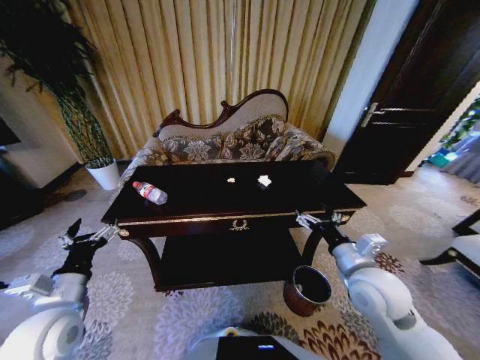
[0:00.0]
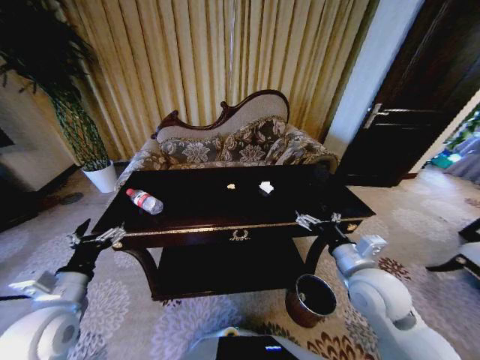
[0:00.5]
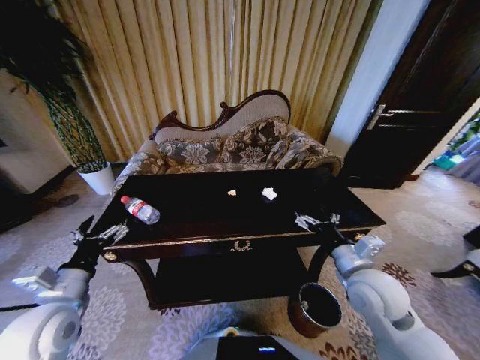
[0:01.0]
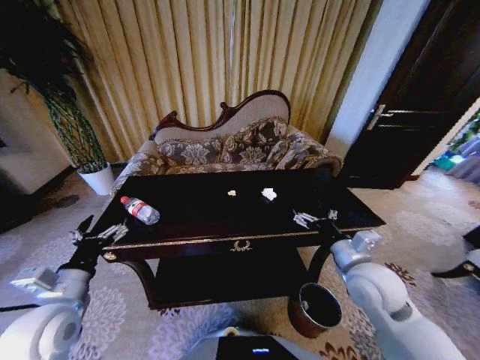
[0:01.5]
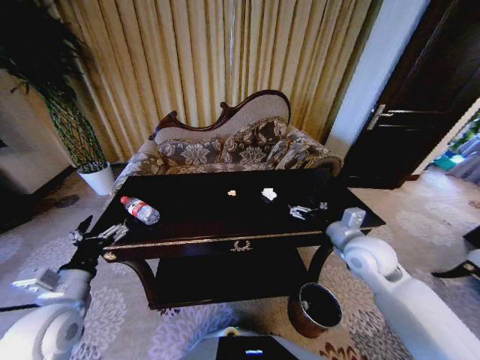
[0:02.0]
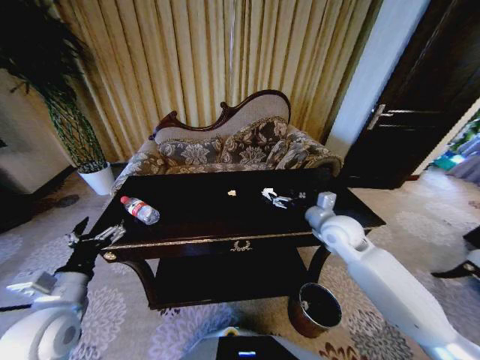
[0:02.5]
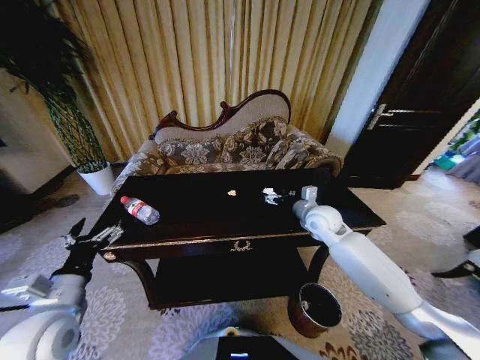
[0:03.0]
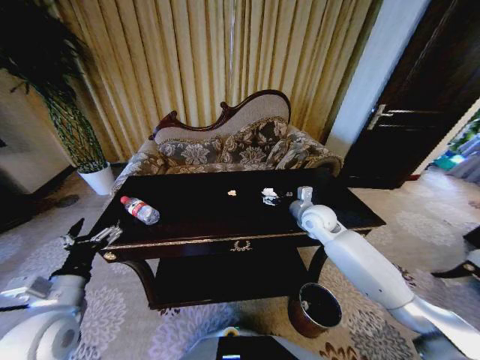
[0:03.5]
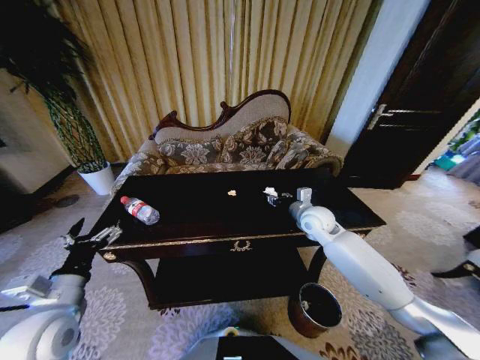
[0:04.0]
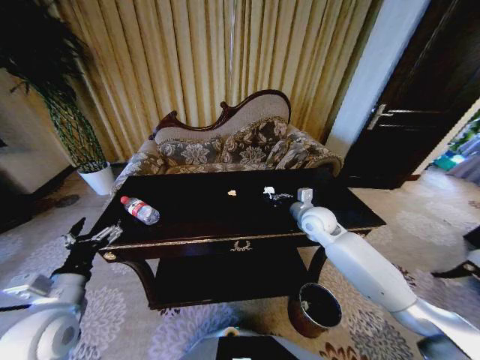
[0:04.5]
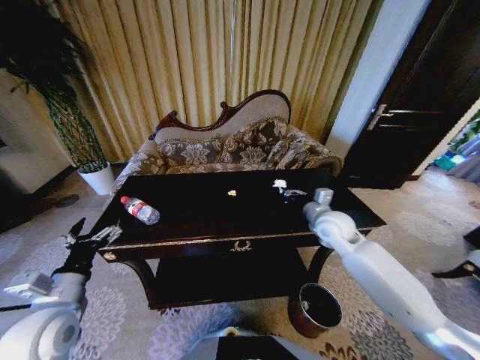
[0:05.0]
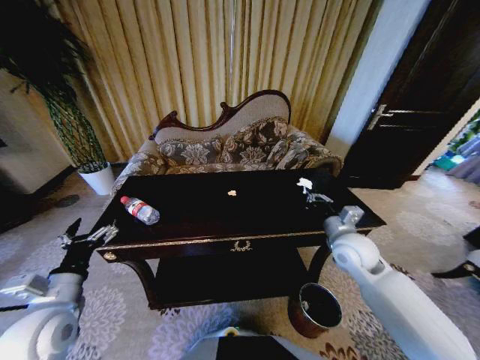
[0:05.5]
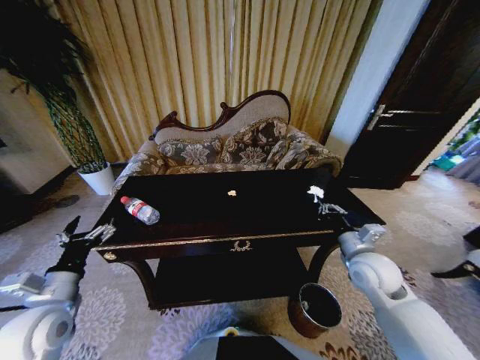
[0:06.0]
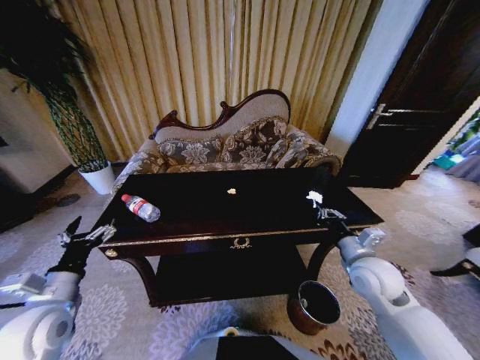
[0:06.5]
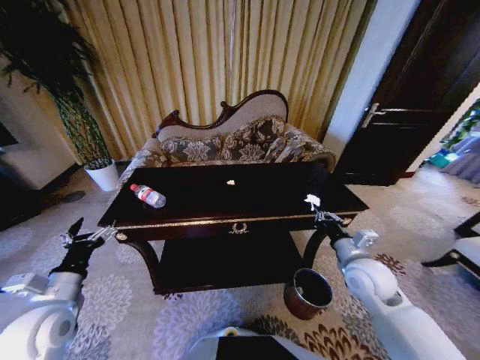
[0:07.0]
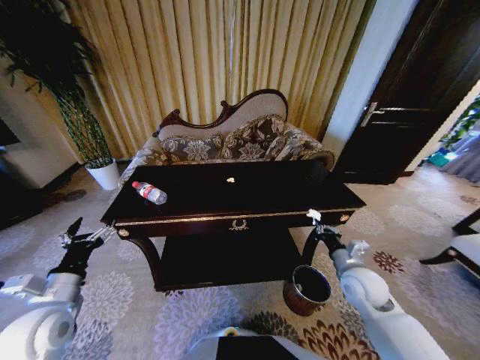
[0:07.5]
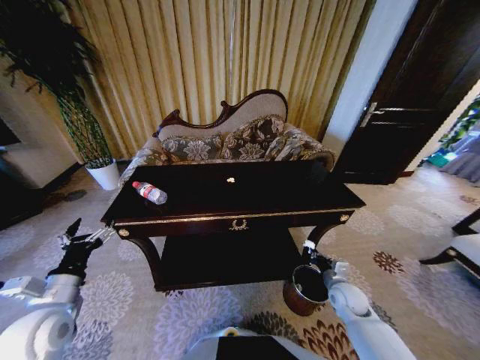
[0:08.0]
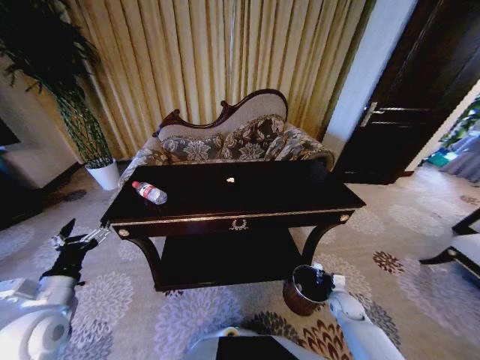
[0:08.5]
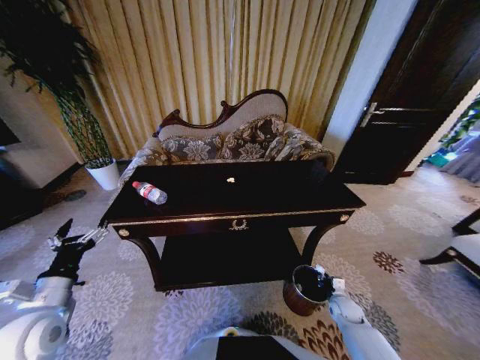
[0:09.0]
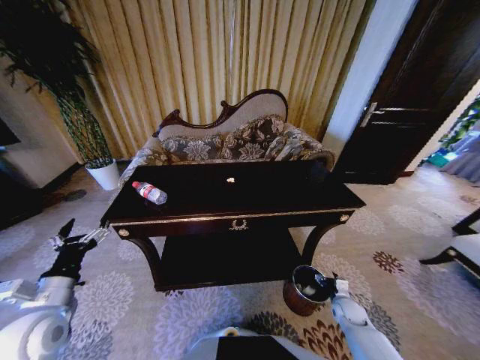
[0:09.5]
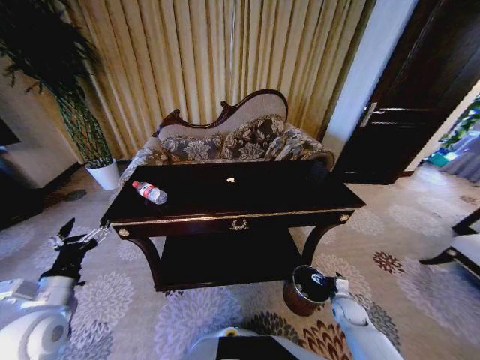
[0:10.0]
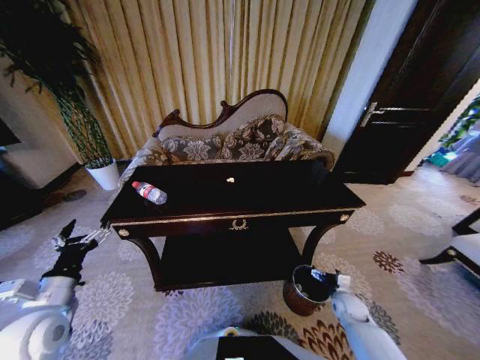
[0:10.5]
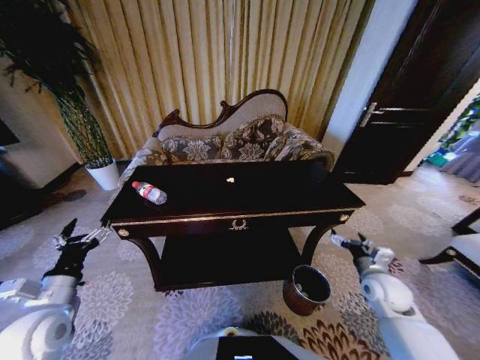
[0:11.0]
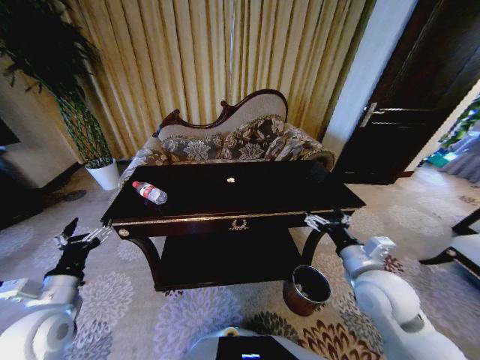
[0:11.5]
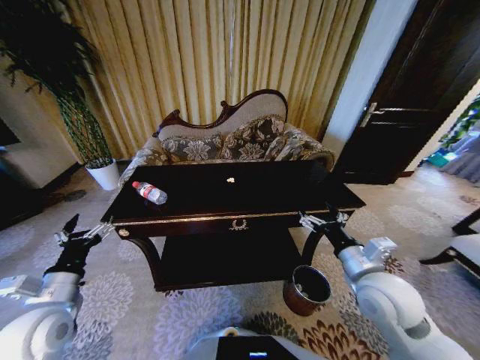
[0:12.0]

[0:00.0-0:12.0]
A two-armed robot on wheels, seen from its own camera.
Task of the whole recording: Move to the front of the table and place the trash on the table into the trash bin.
0.0 to 2.0 s: The right gripper is displaced forward by roughly 10 cm.
2.0 to 4.0 s: The right gripper shifts about 15 cm forward and to the left, and closes.
4.0 to 6.0 s: The right gripper travels backward and to the right by some 20 cm, and closes up.
6.0 to 8.0 s: The right gripper is displaced downward by some 20 cm.
8.0 to 10.0 s: The right gripper goes about 10 cm downward, and opens.
10.0 to 12.0 s: The right gripper moves upward, approximately 30 cm.

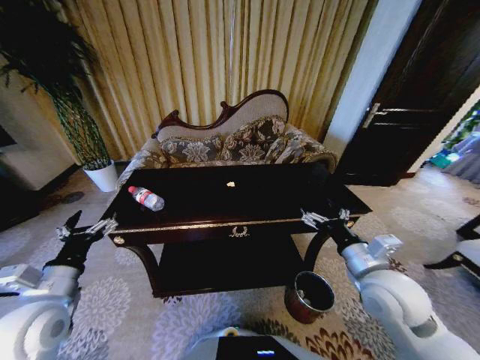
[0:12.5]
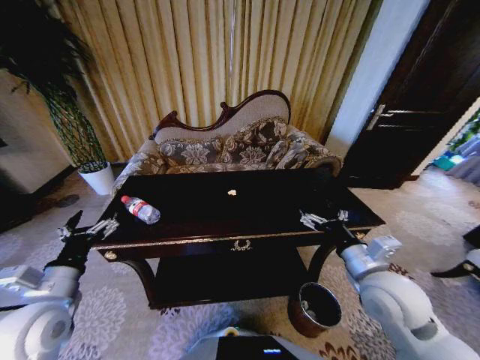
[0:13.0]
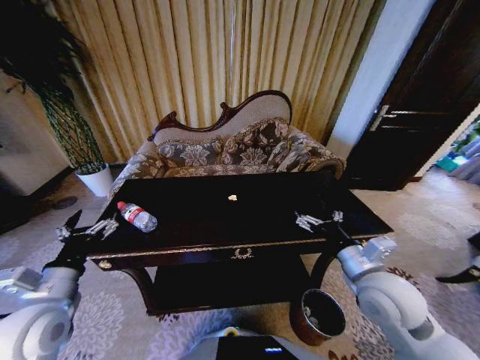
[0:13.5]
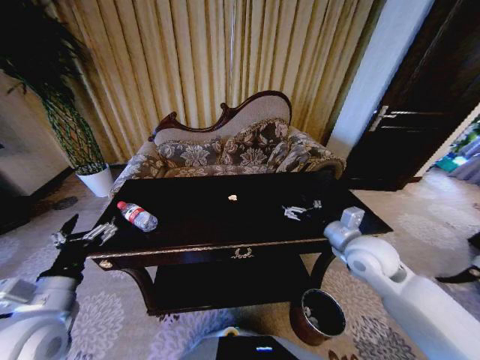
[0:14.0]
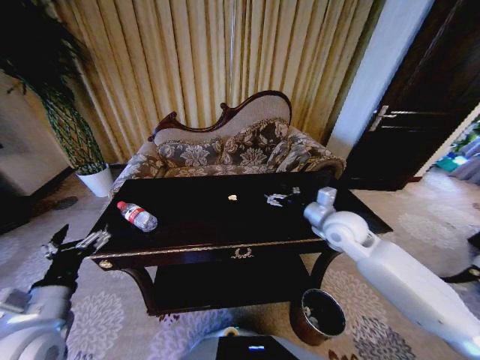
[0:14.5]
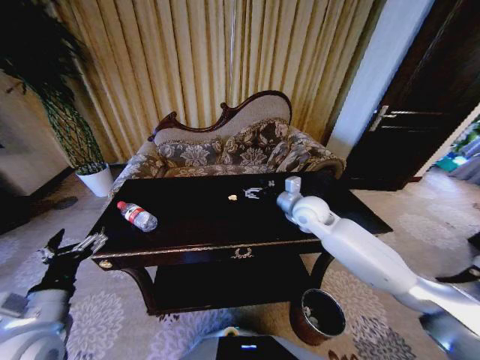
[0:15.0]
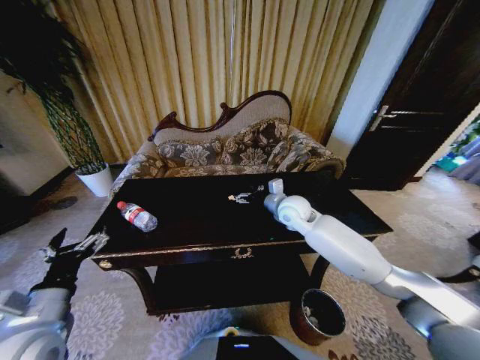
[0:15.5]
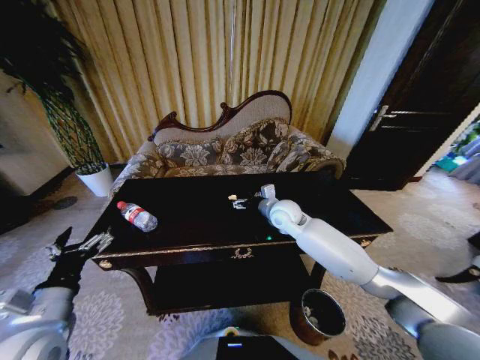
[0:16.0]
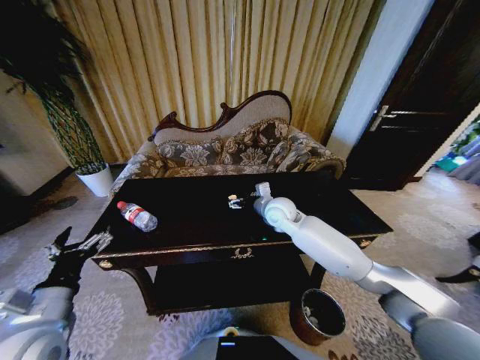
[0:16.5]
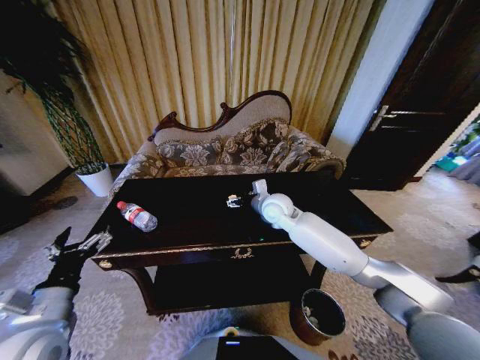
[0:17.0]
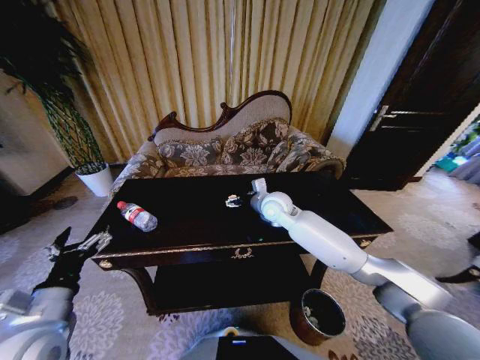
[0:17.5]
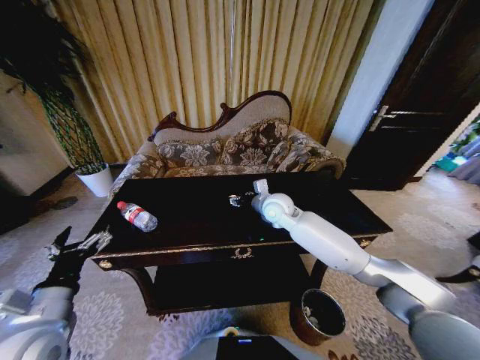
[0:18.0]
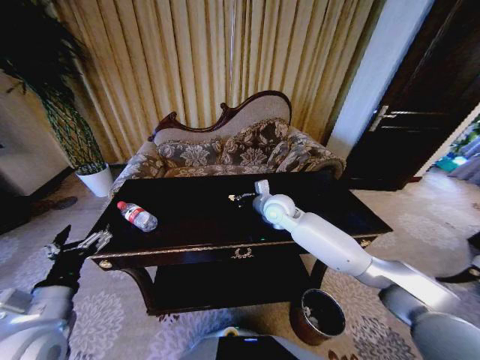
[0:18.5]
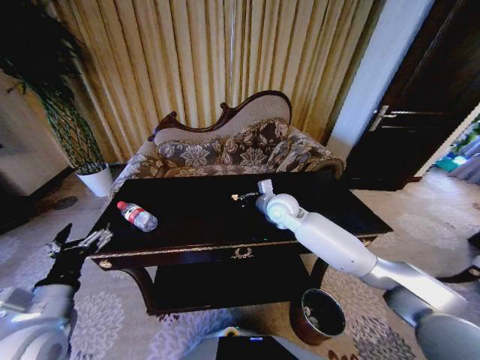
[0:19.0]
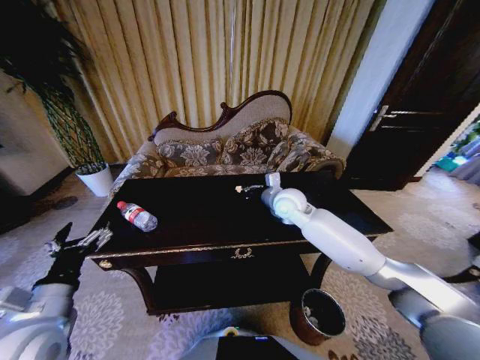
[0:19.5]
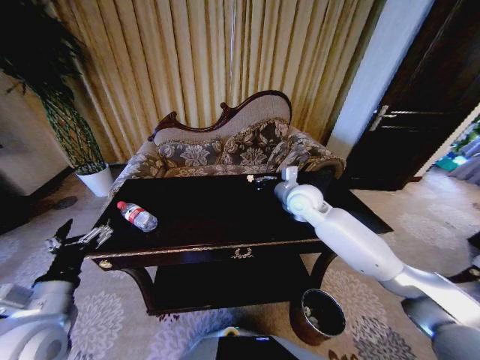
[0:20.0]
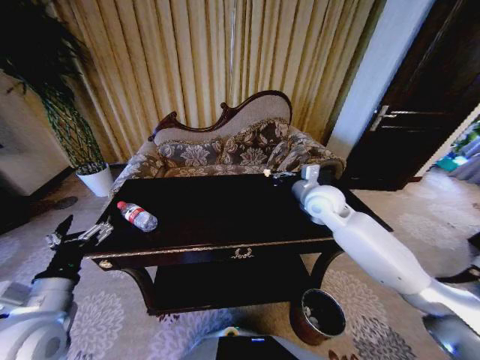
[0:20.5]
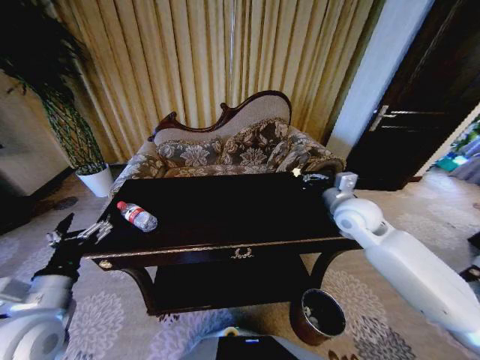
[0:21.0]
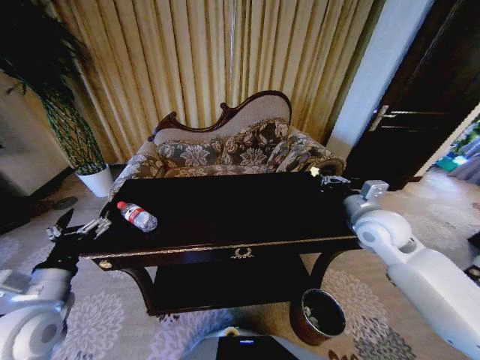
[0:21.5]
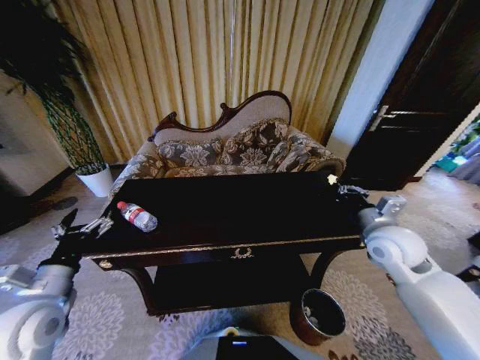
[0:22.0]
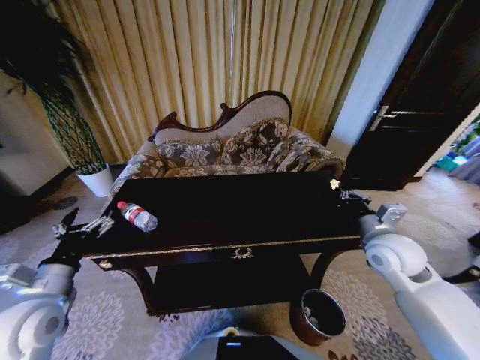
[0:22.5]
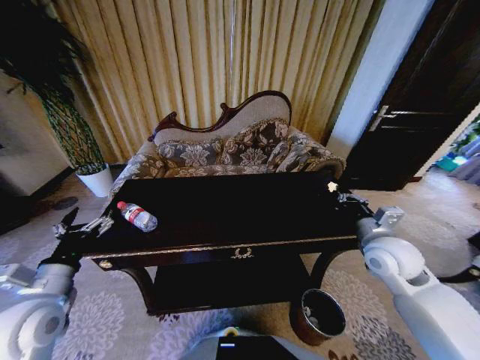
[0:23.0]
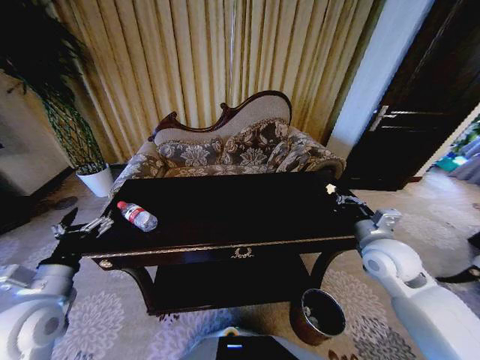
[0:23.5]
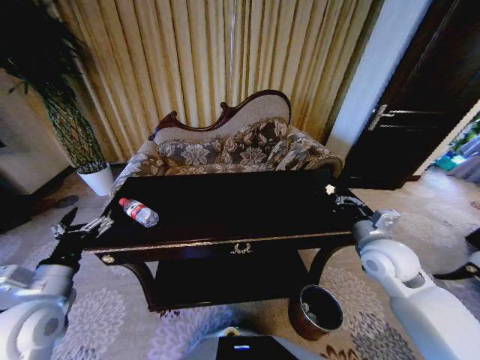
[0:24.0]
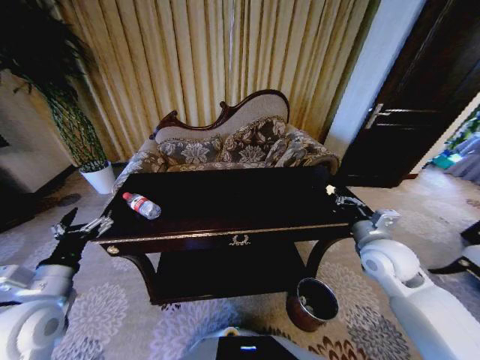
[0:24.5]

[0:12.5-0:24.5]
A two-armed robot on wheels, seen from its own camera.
Task of the whole recording: Move to the front of the table and place the trash on the table into the trash bin.
12.5 to 14.5 s: The right gripper heads forward, covering approximately 15 cm.
14.5 to 16.5 s: The right gripper heads to the left and forward, covering approximately 15 cm.
16.5 to 18.5 s: The right gripper closes its fingers.
18.5 to 20.5 s: The right gripper heads to the right and upward, covering some 15 cm.
20.5 to 22.5 s: The right gripper travels backward and to the right by about 15 cm.

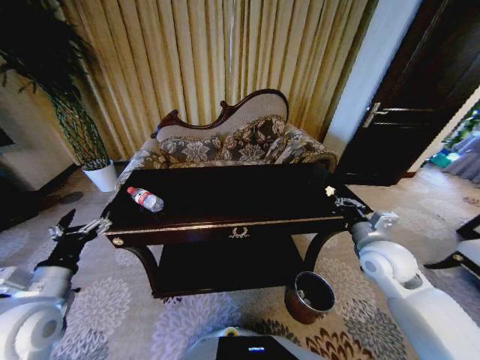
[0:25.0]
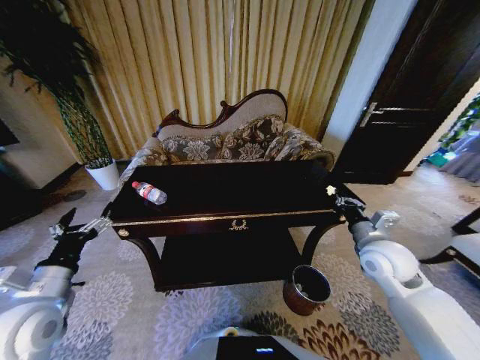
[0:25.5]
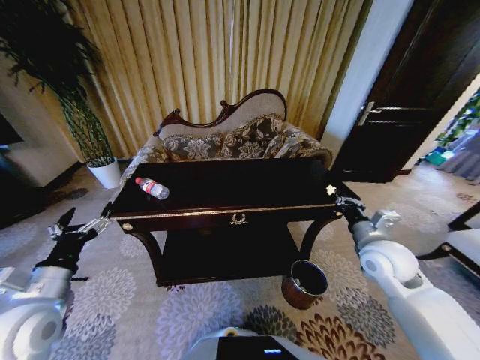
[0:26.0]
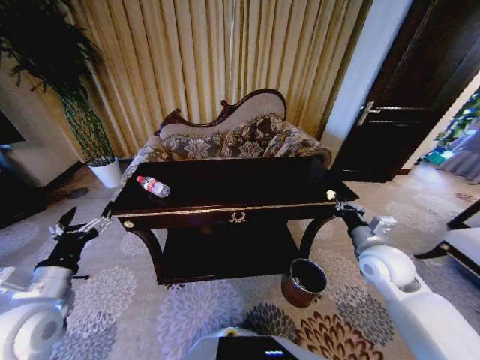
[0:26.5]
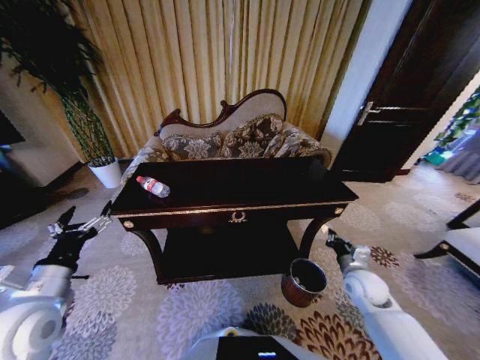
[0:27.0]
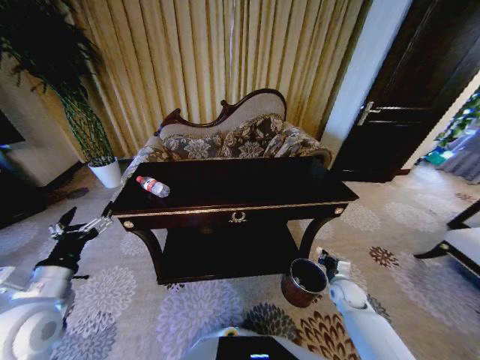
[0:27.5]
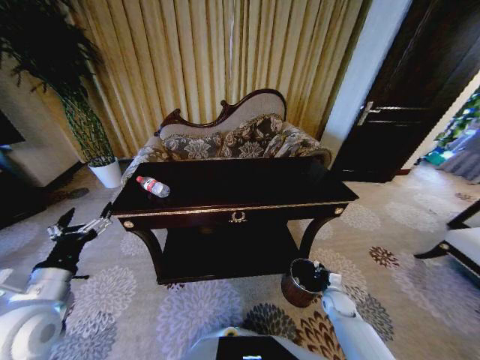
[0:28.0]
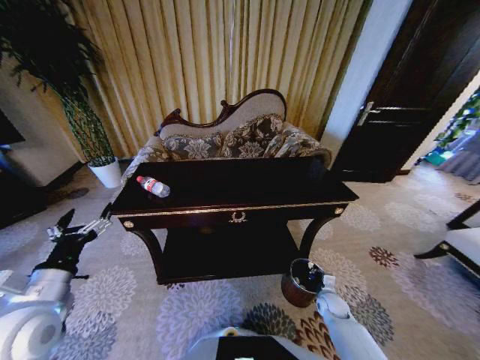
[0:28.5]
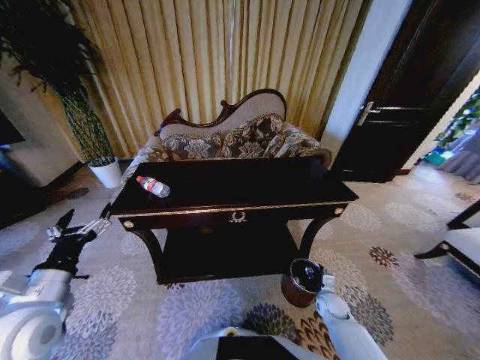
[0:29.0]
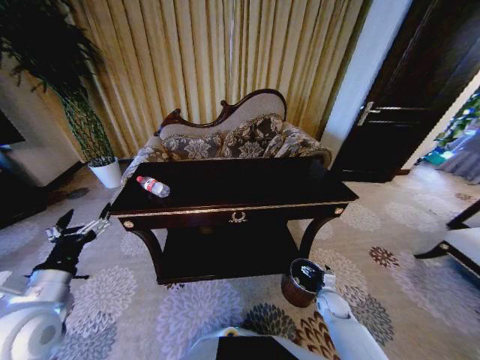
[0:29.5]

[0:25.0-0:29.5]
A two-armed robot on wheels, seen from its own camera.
Task of the whole recording: Move to the front of the table and place the trash on the table into the trash bin.
25.0 to 27.0 s: The right gripper shifts roughly 15 cm downward.
27.0 to 29.5 s: The right gripper heads downward, covering some 15 cm, and opens its fingers.
